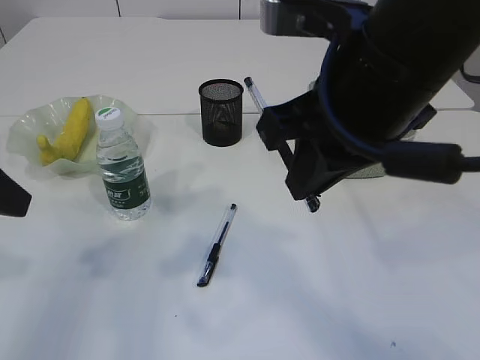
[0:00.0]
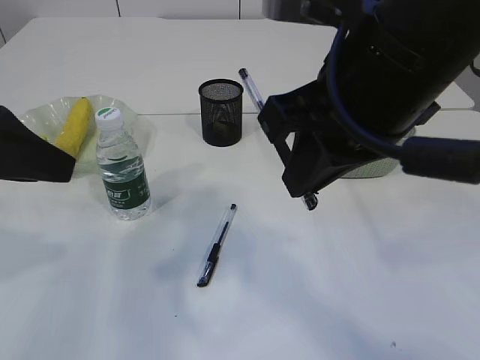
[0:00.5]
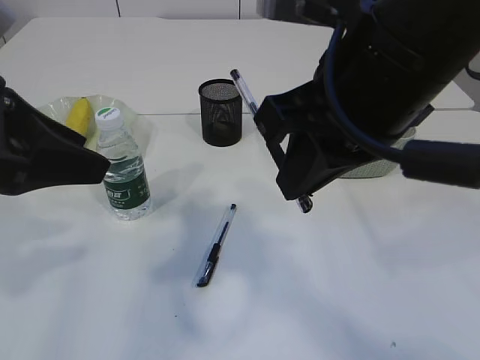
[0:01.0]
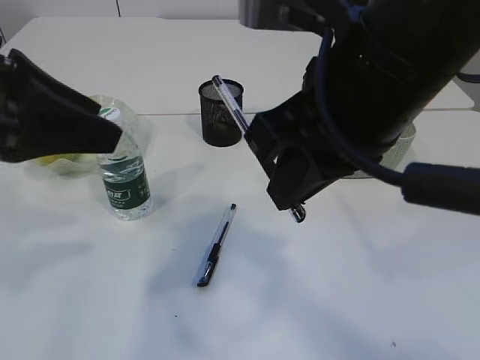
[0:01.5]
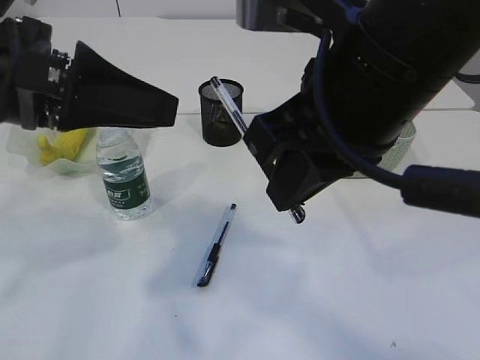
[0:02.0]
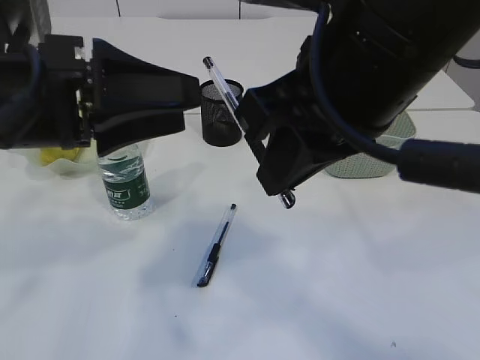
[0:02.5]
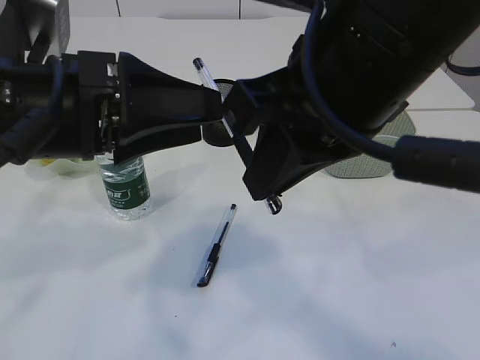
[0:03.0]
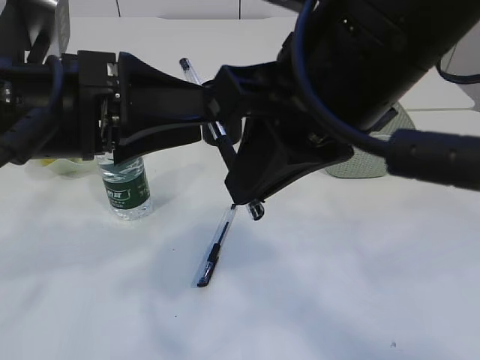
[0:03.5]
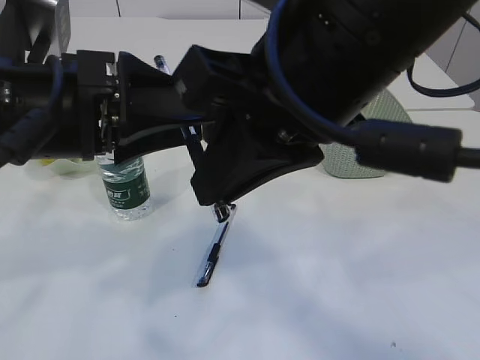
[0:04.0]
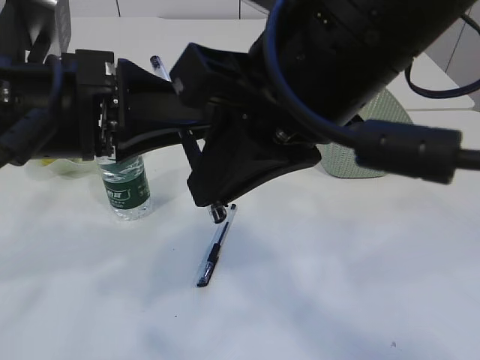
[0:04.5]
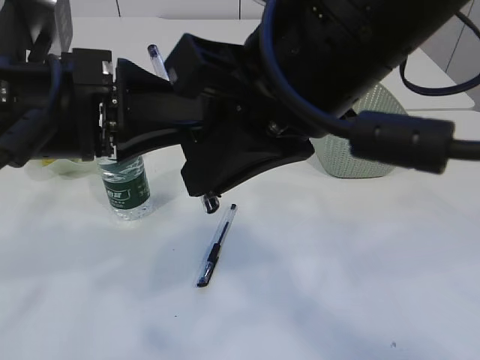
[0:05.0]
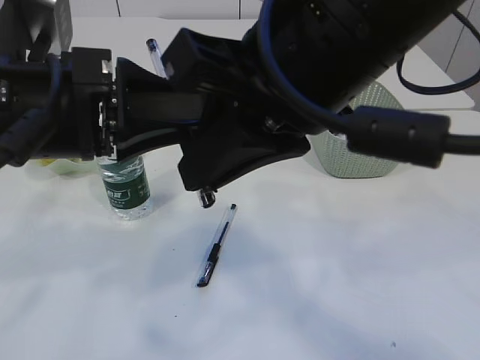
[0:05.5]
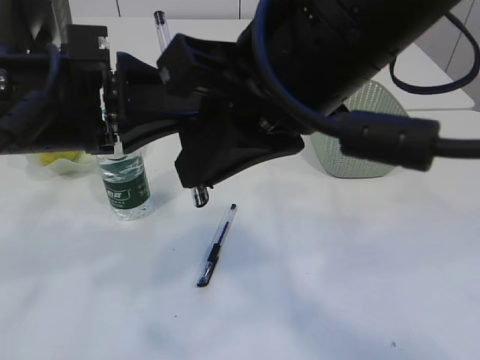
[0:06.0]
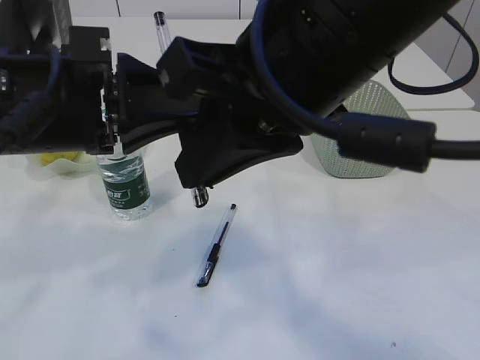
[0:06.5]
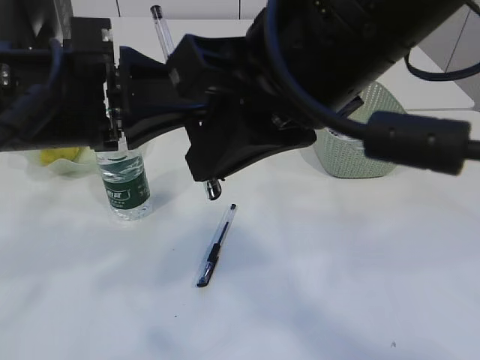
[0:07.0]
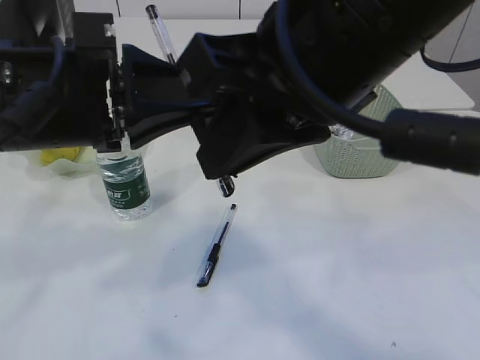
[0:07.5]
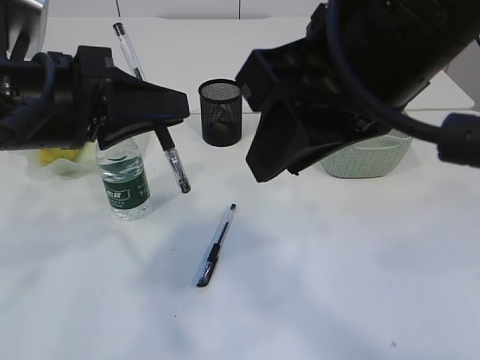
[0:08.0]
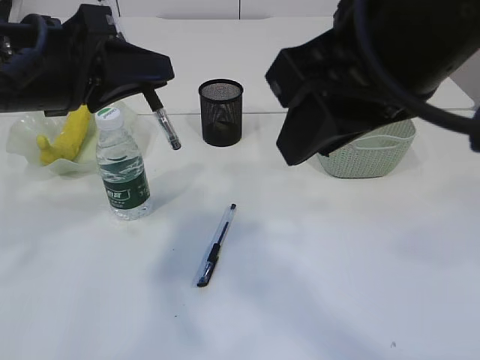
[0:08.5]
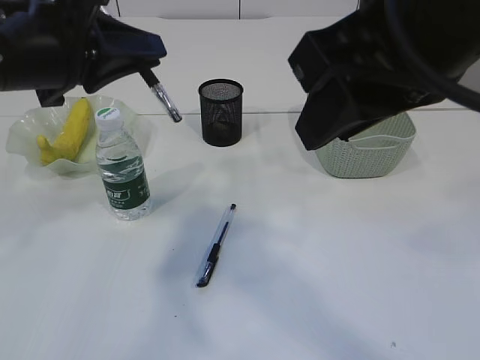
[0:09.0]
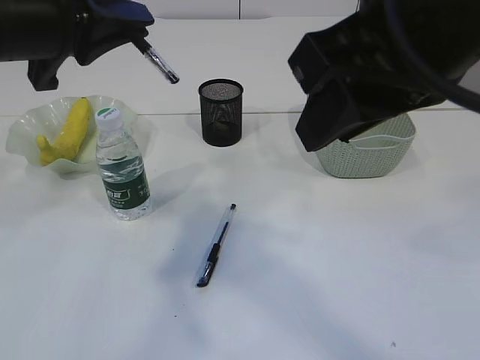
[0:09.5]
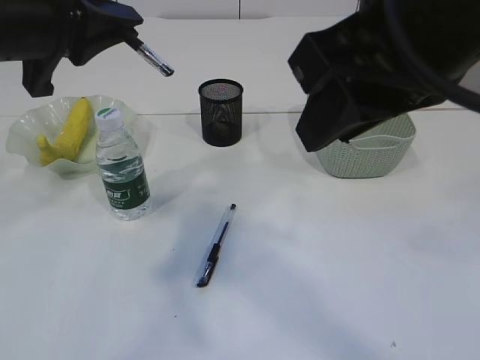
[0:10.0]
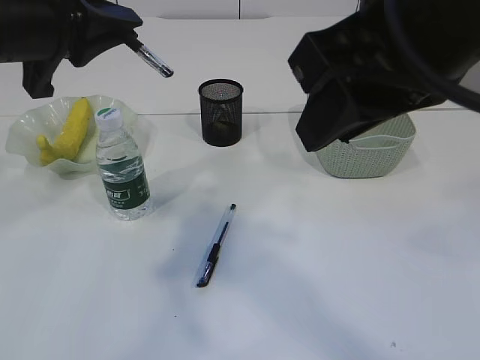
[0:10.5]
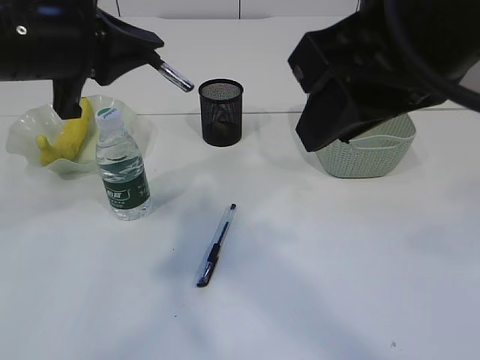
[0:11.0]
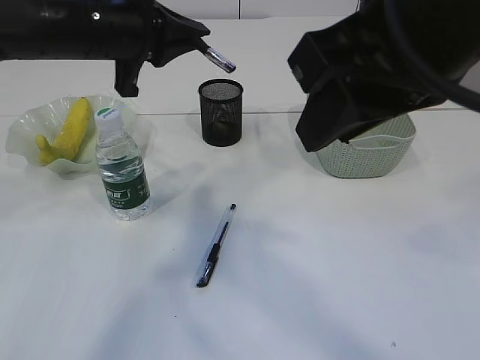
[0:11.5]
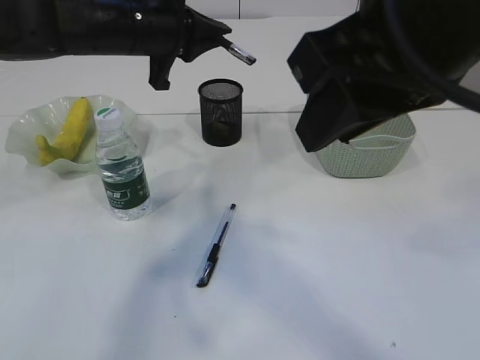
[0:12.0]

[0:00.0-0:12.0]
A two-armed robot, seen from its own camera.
Step, 0:00.0 to 0:07.5: transfer the pen to the left arm.
0:00.0 to 0:02.0: The left gripper travels to the right by about 10 cm.
0:04.0 to 0:06.0: The left gripper closes.
0:08.0 to 0:10.0: The left gripper ends up some 5 cm from where it was.
0:10.0 to 0:12.0: The left gripper goes roughly 15 cm forward and to the right.

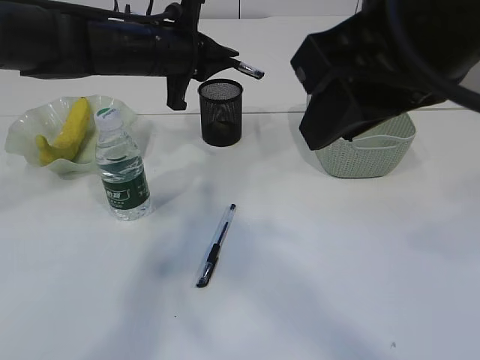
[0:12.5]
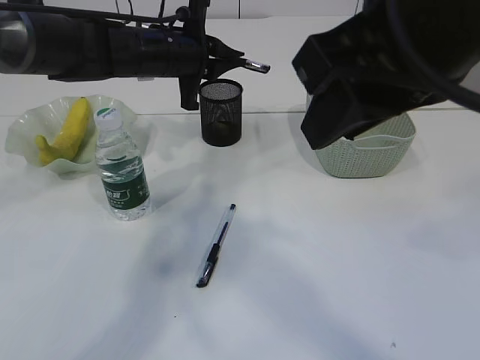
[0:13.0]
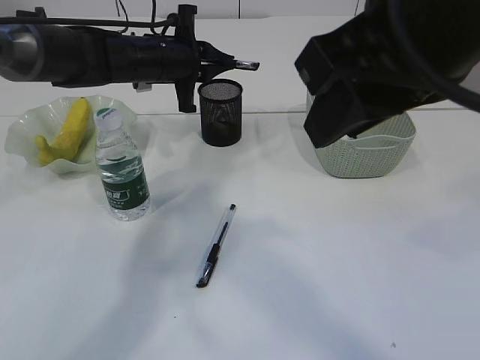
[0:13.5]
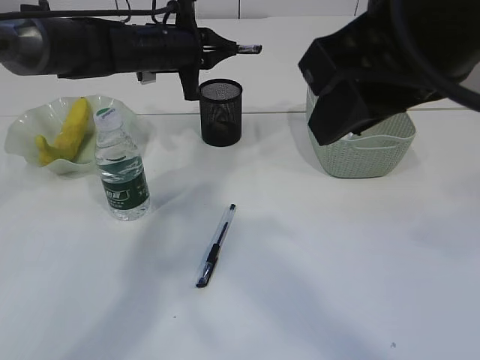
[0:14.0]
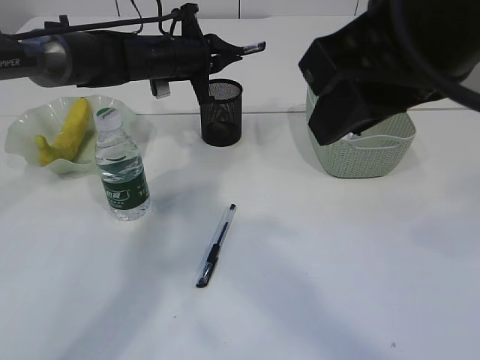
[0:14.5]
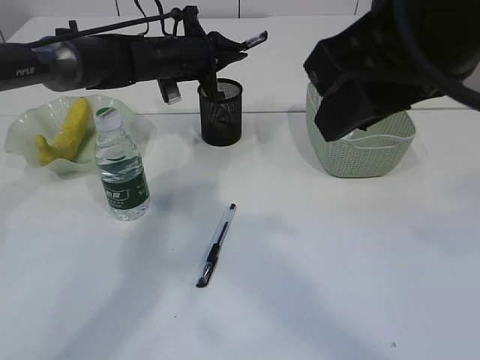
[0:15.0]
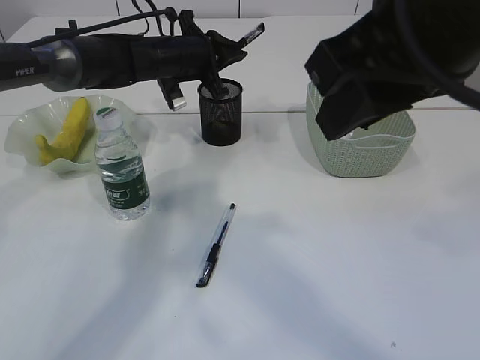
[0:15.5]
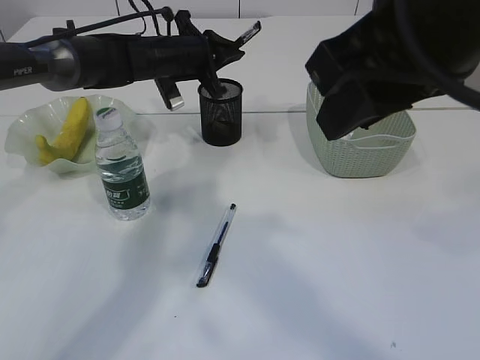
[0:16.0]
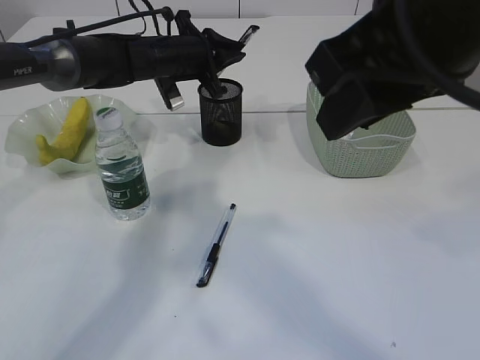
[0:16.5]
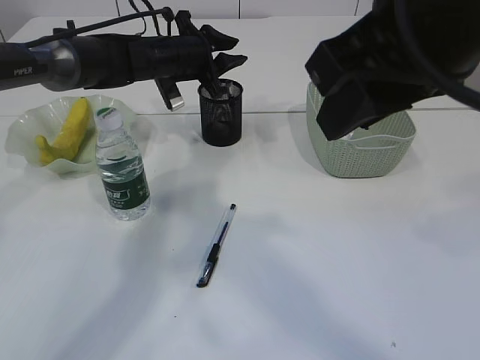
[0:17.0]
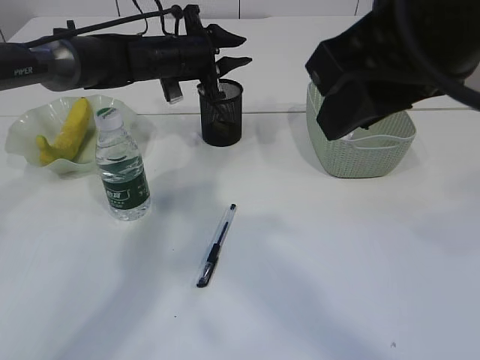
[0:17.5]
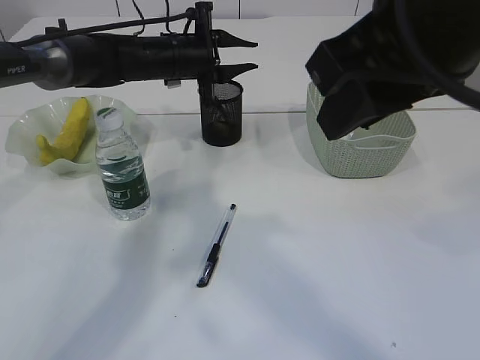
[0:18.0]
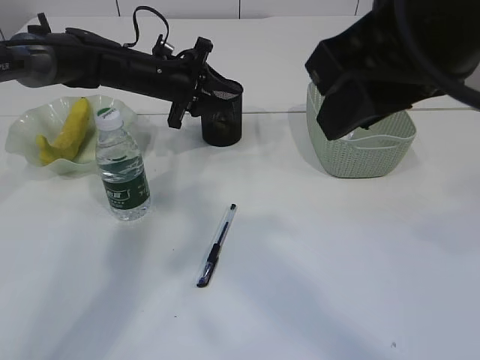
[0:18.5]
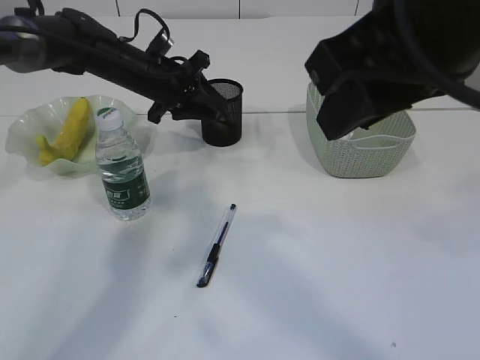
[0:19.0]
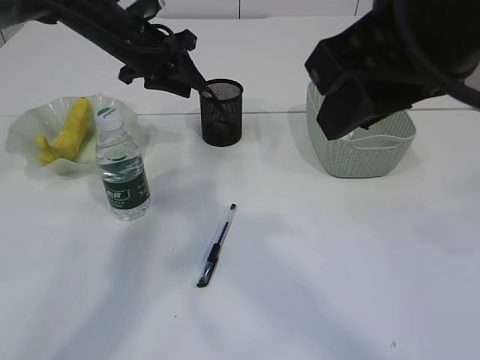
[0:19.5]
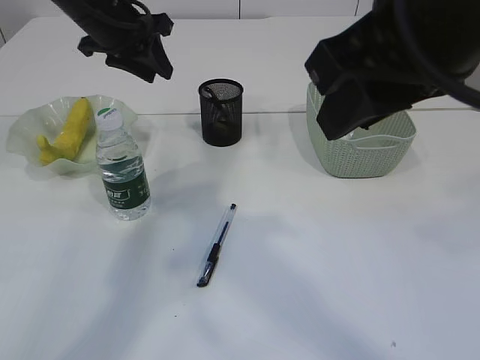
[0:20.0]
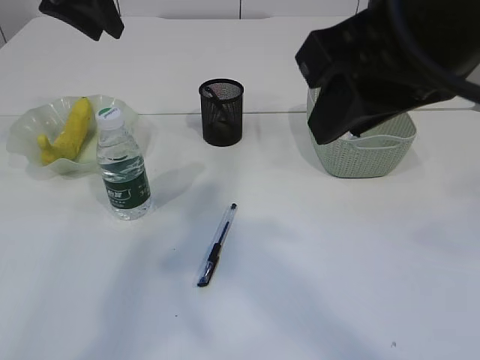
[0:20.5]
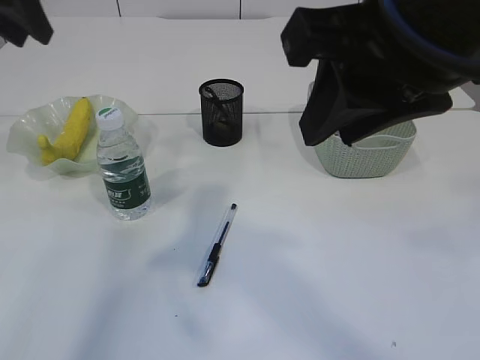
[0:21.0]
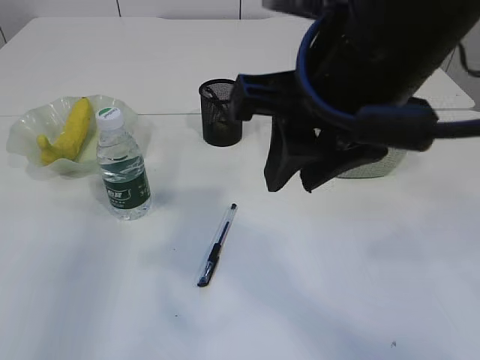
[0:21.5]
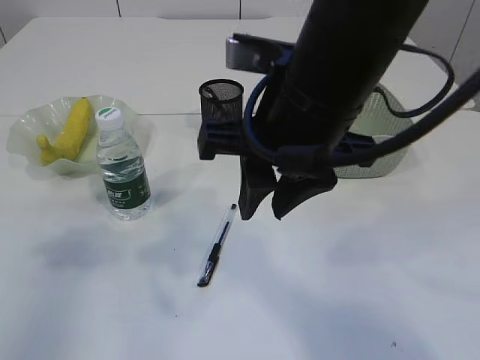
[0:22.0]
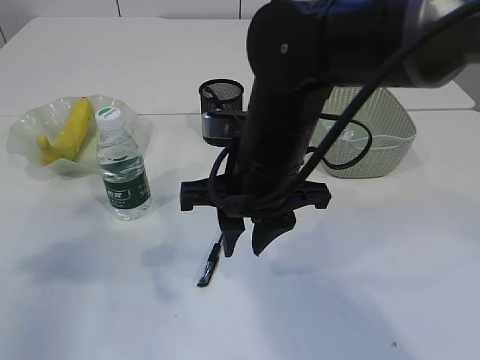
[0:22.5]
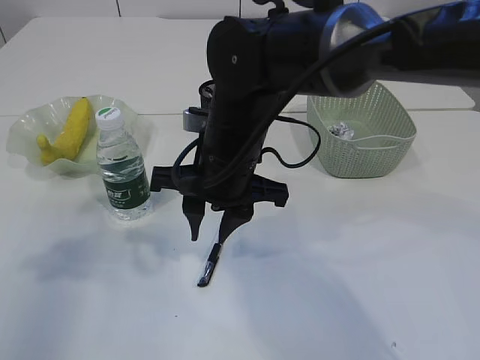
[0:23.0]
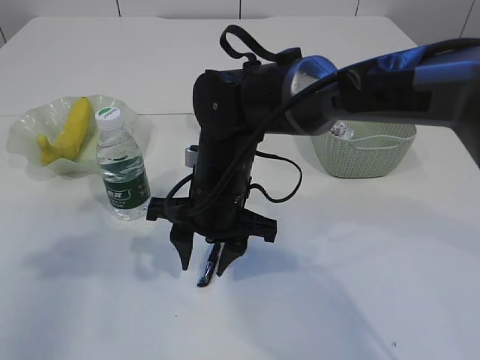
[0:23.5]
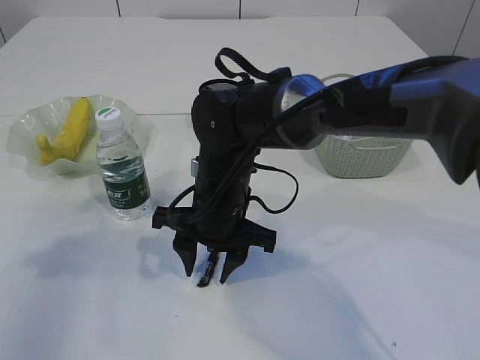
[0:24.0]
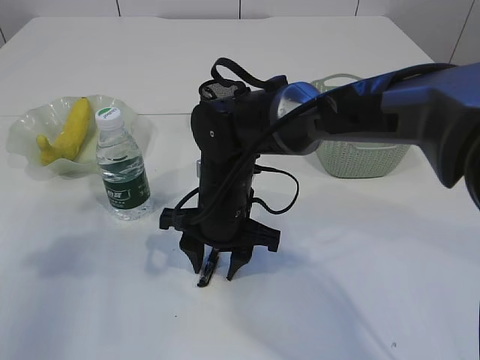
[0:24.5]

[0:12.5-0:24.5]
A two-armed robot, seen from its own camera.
Step, 0:12.5 to 0:17.5: Place the pen into the pen holder.
0:12.5 to 0:14.5: The left gripper shifts approximately 10 cm forward.
0:18.5 to 0:20.5: The left gripper shifts roughly 20 cm upward, backward and to the left.
0:20.5 to 0:22.5: The right gripper is displaced downward, to the left and forward by some 20 cm. The left gripper shifts approximately 25 cm backward and to the left.
0:22.5 to 0:24.5: The right gripper travels downward and forward by some 10 cm.

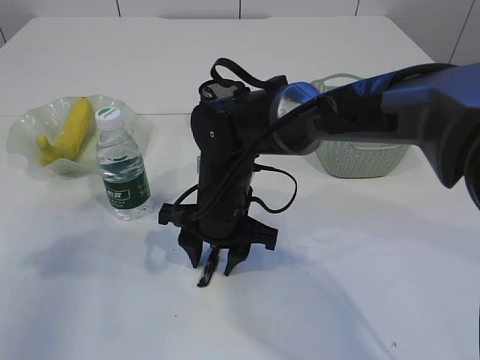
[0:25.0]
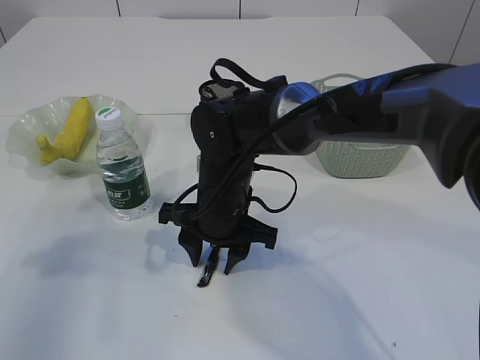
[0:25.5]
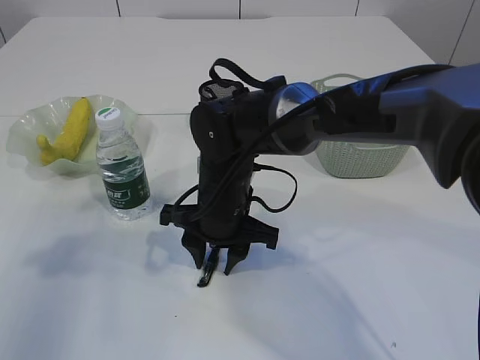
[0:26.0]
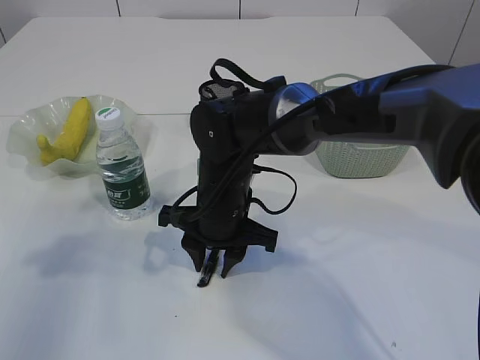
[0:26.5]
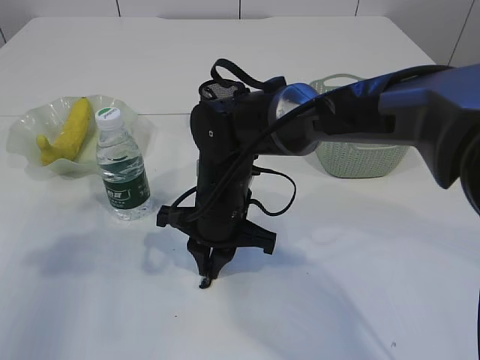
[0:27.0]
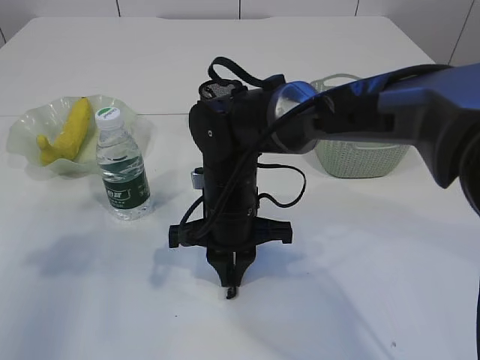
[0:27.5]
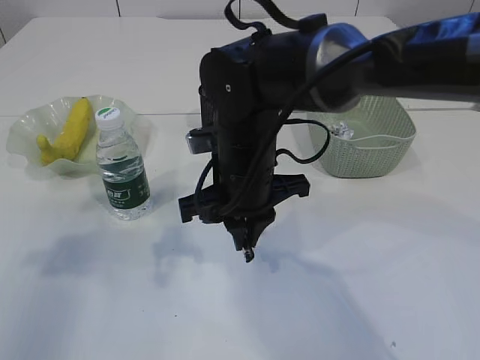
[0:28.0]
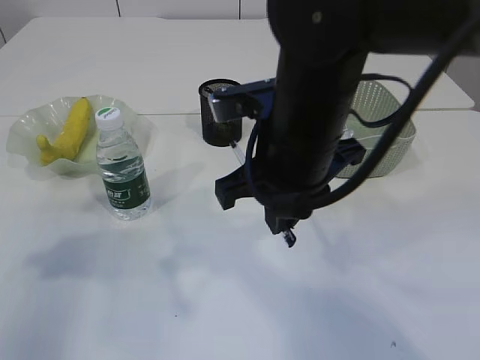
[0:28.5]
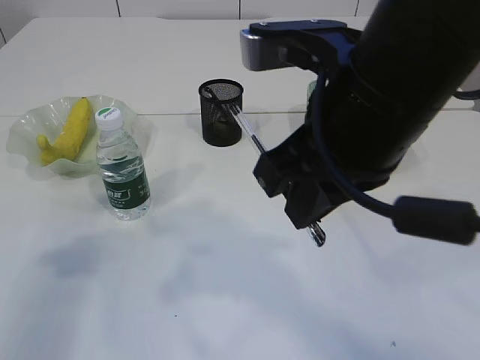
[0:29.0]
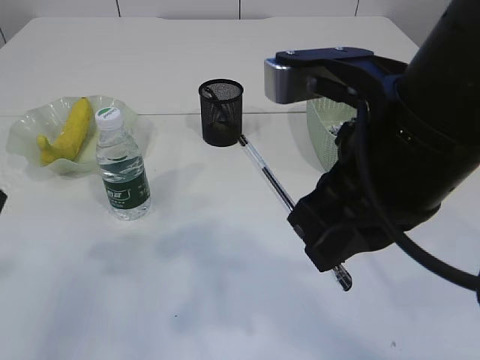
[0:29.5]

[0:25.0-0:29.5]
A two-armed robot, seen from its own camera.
Step, 0:25.0 to 0:27.5: Pick up the pen with right arm.
0:25.0 to 0:27.0: The right gripper closes up.
0:27.0 to 0:29.5: The left gripper heads to the right, covering approximately 5 cm, while the right gripper is displaced upward, backward and to the right by approximately 25 cm.
